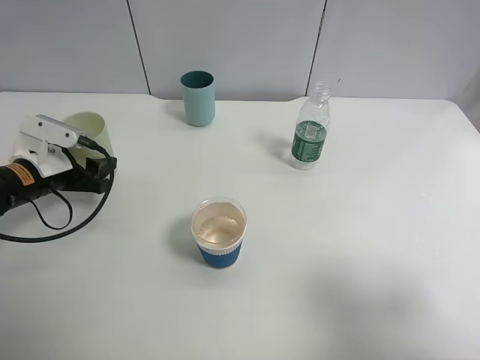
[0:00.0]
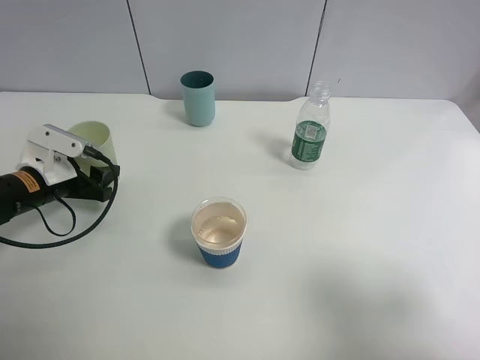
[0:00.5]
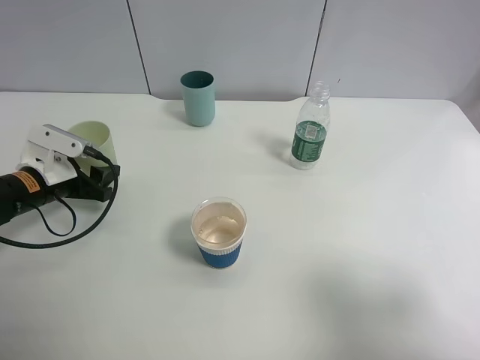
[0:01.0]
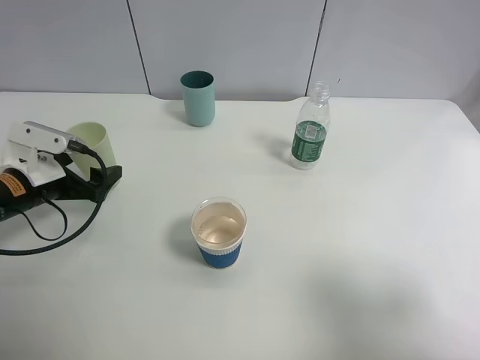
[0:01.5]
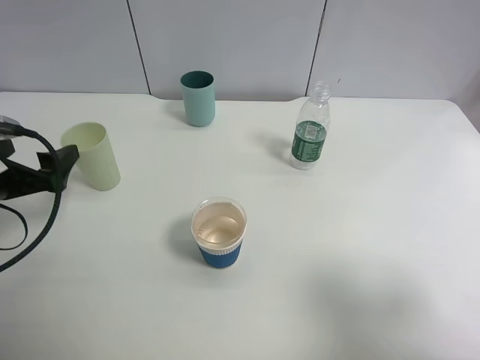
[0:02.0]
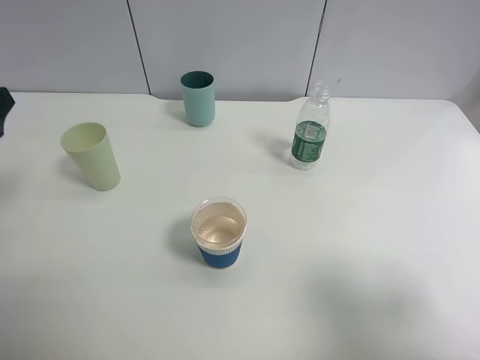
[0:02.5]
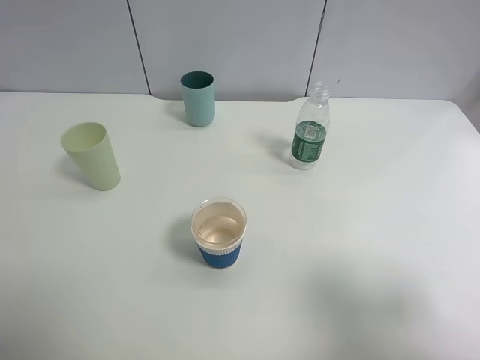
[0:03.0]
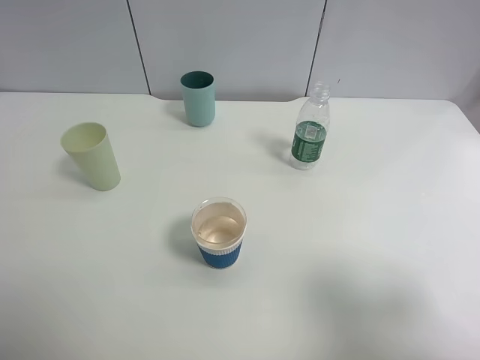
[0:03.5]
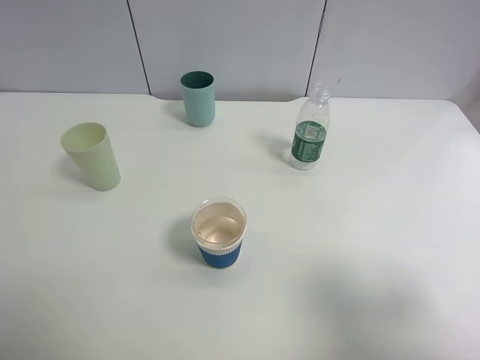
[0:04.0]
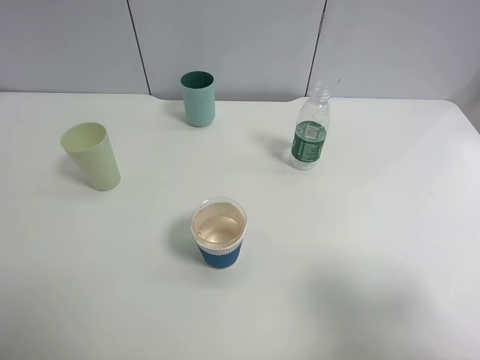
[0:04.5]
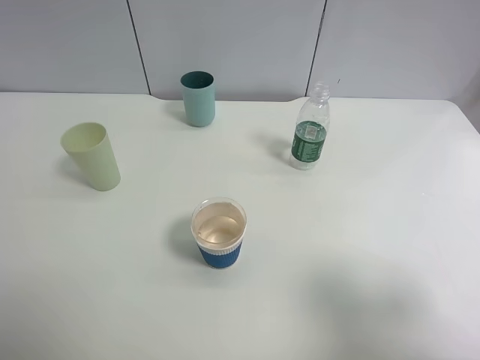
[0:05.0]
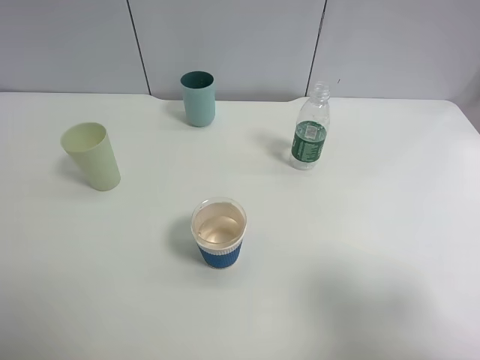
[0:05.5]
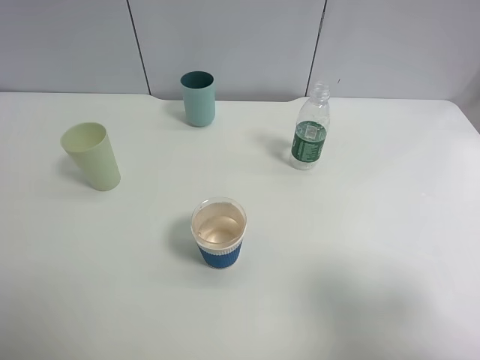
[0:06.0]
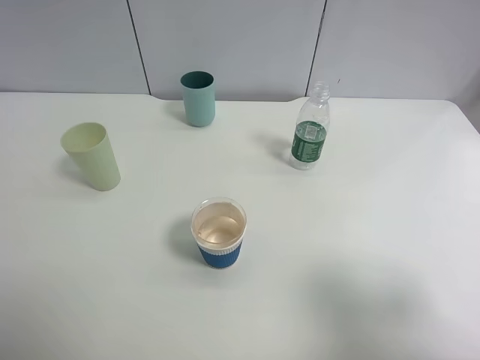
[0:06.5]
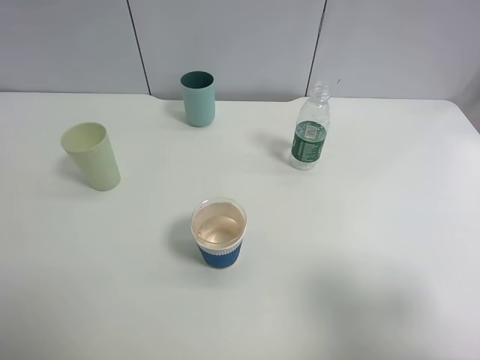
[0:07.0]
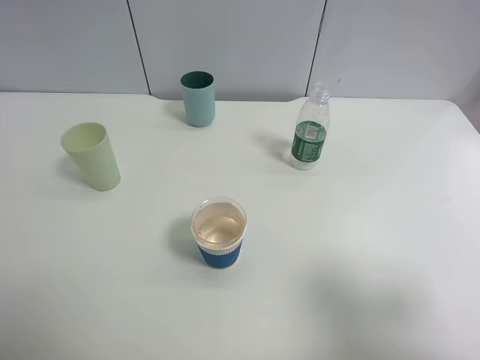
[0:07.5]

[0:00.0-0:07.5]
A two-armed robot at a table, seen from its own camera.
Task of the whole recording: use a clamp to hold the bottle of the drink, pour the beverage into a random cup, then clamp the cup containing the drink and pour the drink into another random cup.
0:00.0 to 0:02.0: The left gripper goes roughly 10 cm backward and upward, and opens up.
0:02.0 to 0:04.0: The left gripper goes about 25 cm backward and upward.
0:05.5 to 0:07.5: The two grippers keep their place.

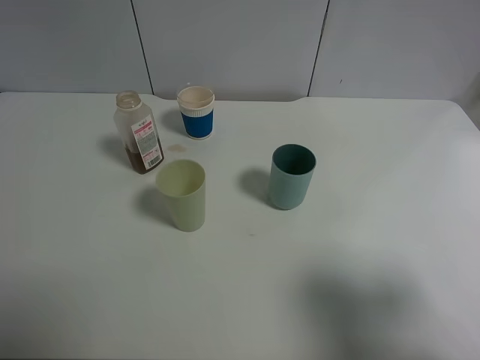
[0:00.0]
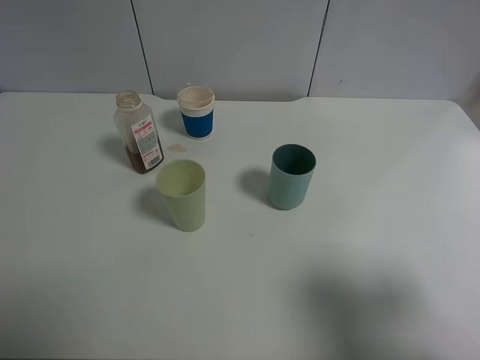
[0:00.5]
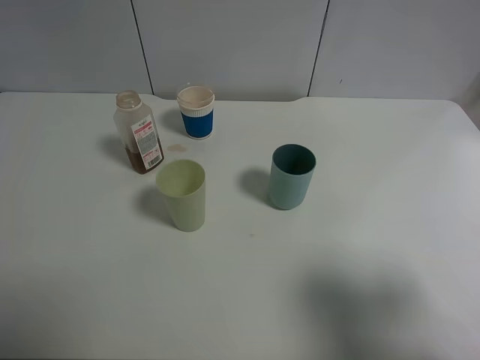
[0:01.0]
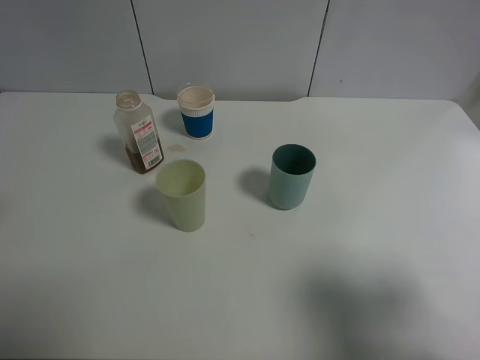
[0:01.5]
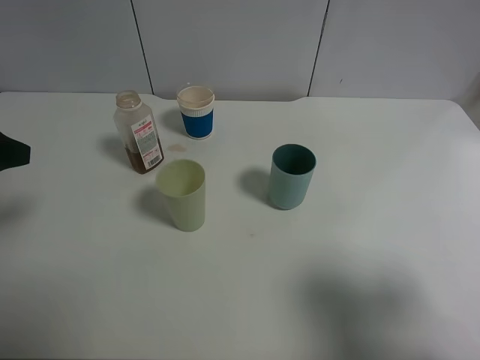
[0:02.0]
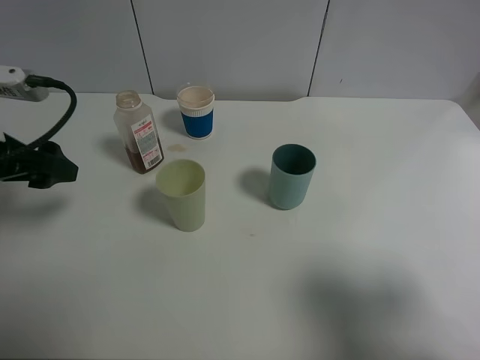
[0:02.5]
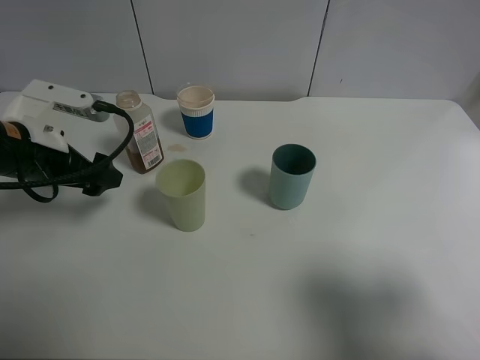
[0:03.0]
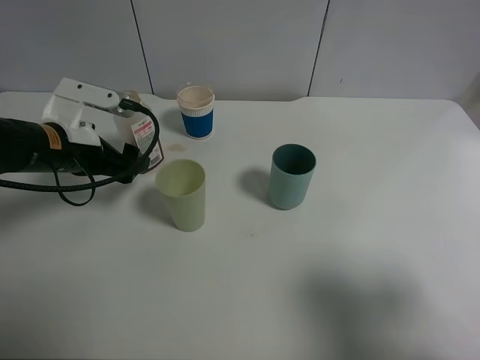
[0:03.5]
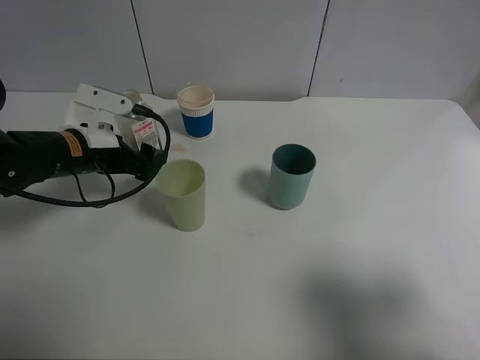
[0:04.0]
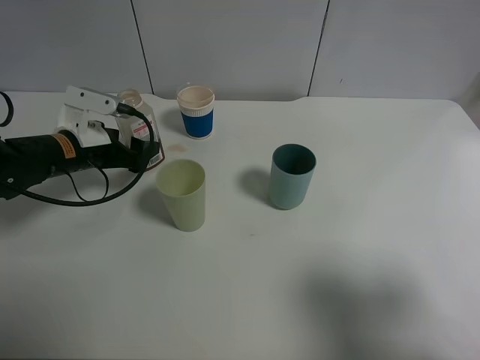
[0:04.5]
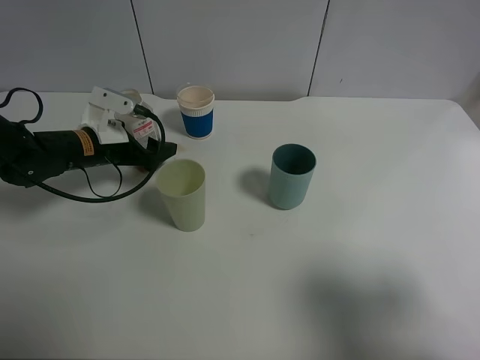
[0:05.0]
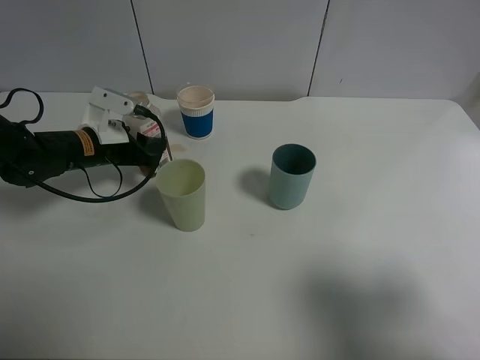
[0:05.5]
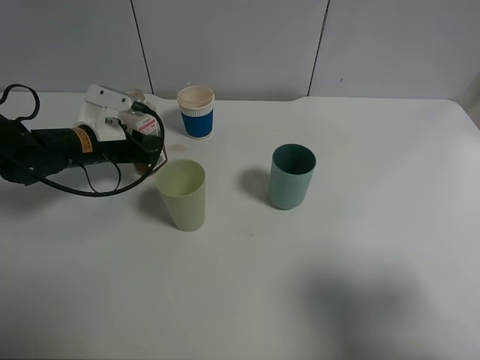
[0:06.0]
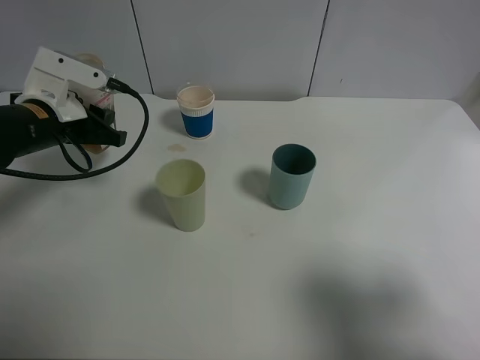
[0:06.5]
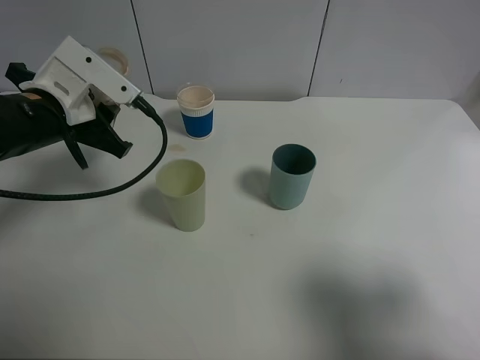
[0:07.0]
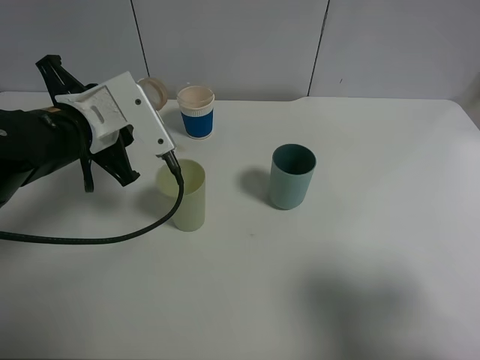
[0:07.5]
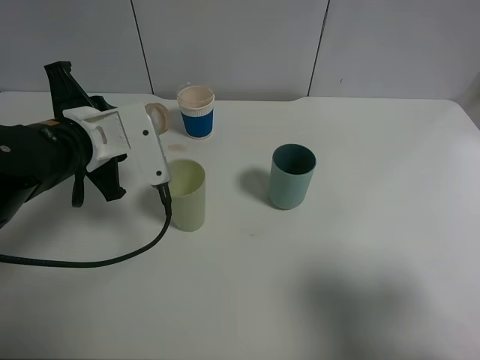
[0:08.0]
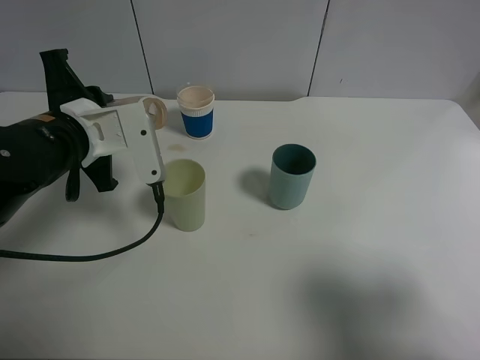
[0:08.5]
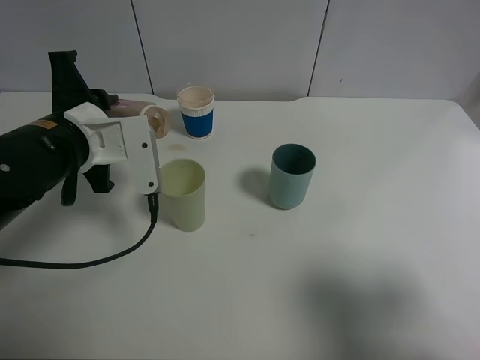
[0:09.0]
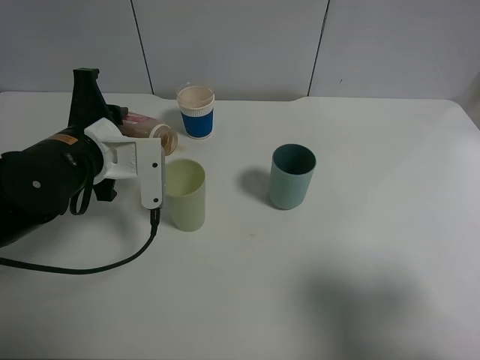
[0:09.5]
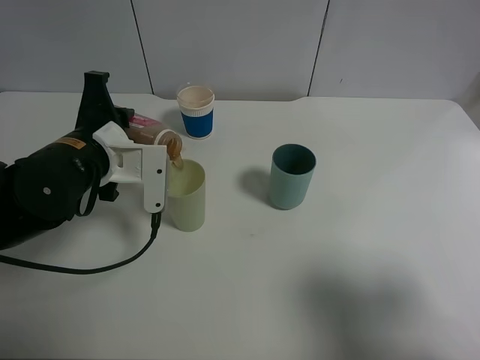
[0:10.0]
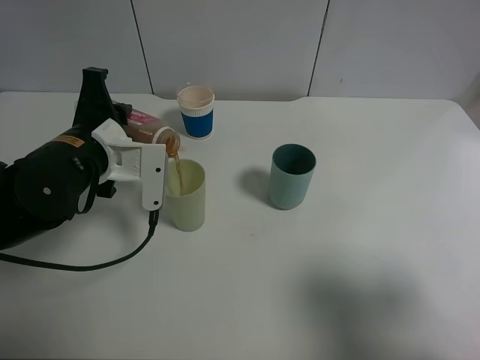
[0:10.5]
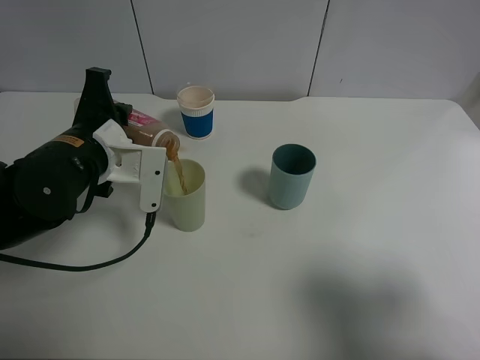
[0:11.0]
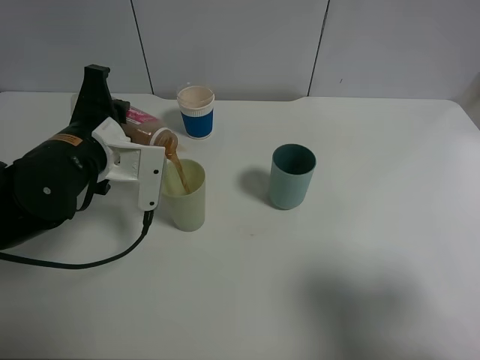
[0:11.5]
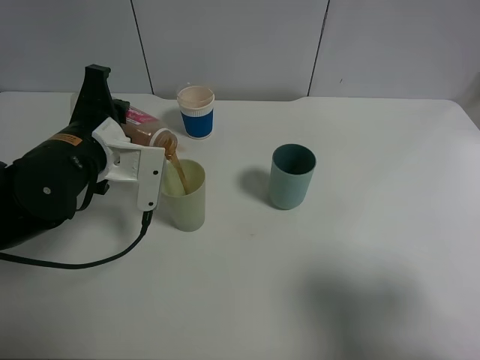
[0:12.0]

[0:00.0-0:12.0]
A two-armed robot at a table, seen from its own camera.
Task of the whole recording: use a clamp to hold the bottle of the drink, pour the beverage into a random cup, then clamp the cup containing the drink and pour the drink into another random cup.
Step, 0:00.0 to 0:06.5: Pick up the drink bottle with left gripper.
0:00.0 to 0:02.0: The left gripper travels forward by some 15 cm.
0:02.0 to 0:04.0: The left gripper shifts about 20 cm downward, forward and to the right.
0:04.0 to 0:06.0: The left gripper moves forward, some 5 cm, and closes.
0:06.0 to 0:08.0: The left gripper shifts about 15 cm backward and upward.
0:10.0 to 0:12.0: The grippers move only a little.

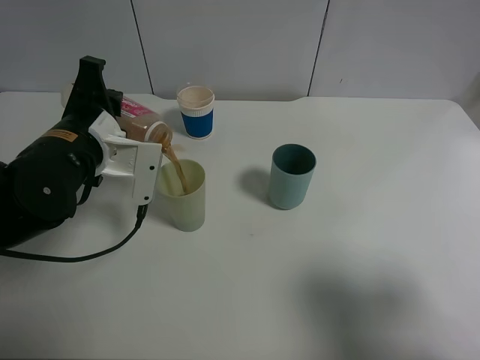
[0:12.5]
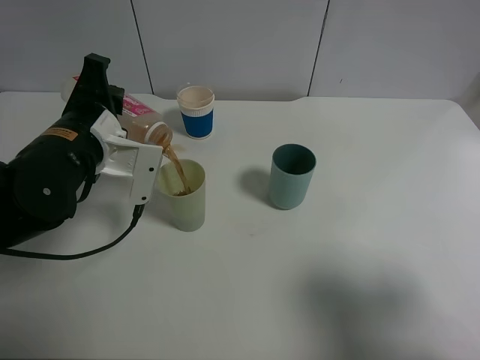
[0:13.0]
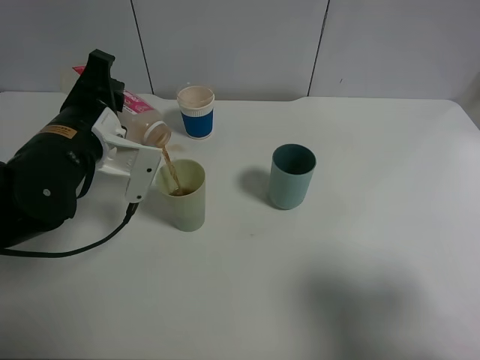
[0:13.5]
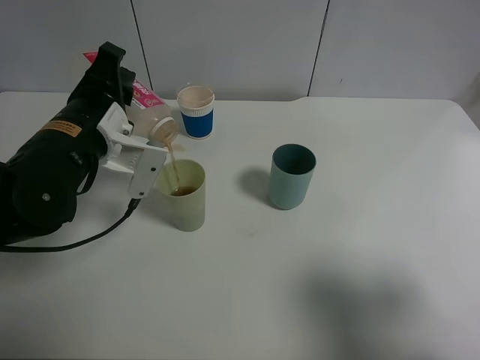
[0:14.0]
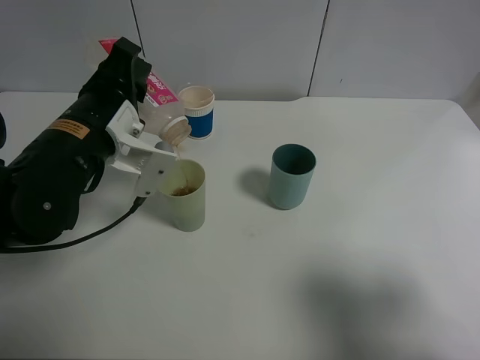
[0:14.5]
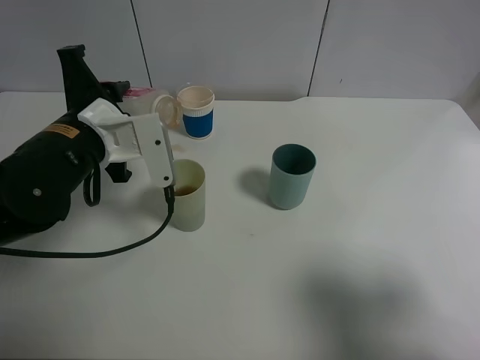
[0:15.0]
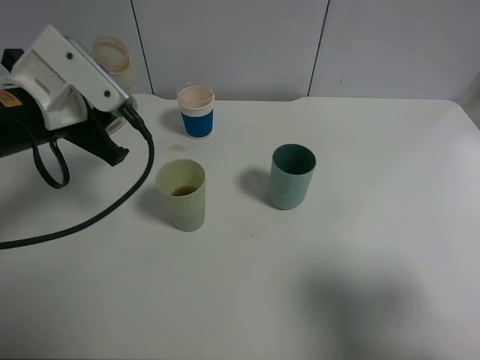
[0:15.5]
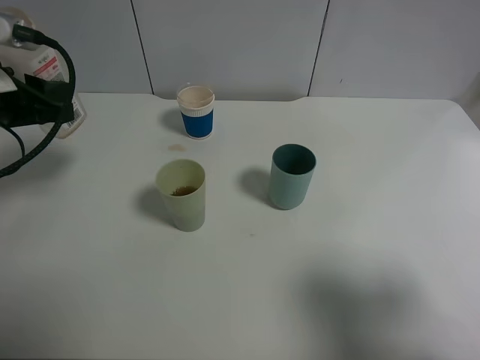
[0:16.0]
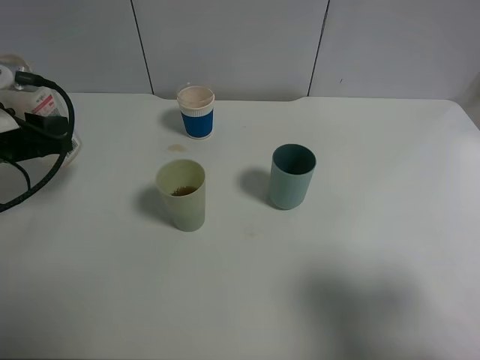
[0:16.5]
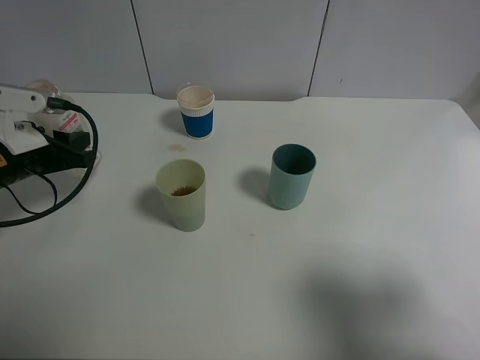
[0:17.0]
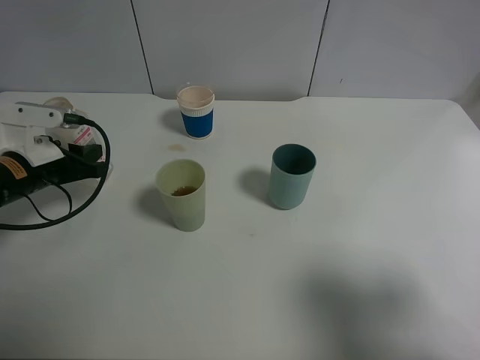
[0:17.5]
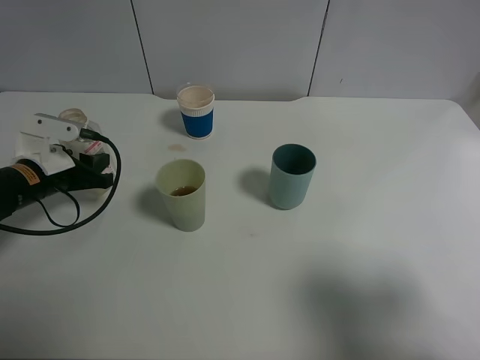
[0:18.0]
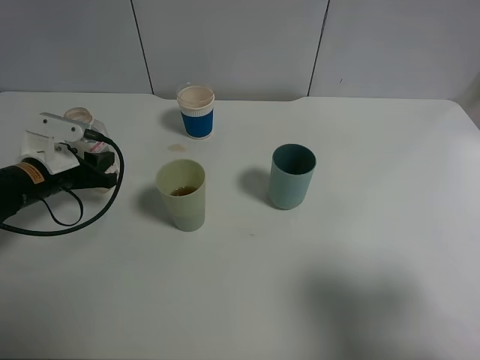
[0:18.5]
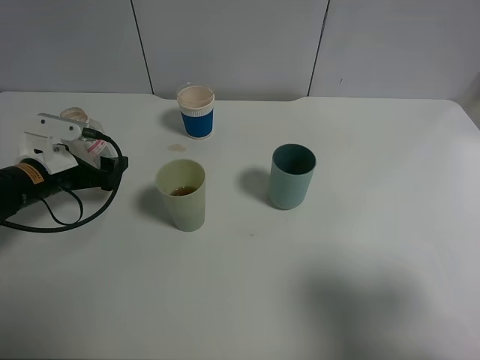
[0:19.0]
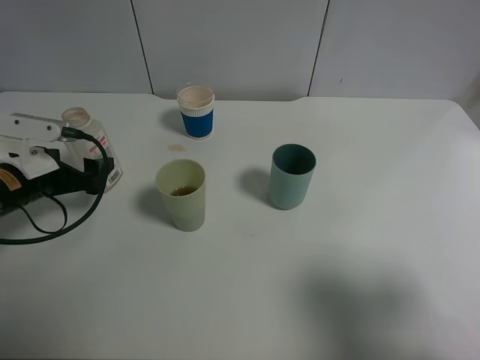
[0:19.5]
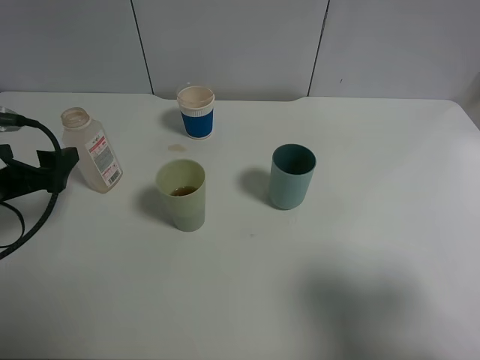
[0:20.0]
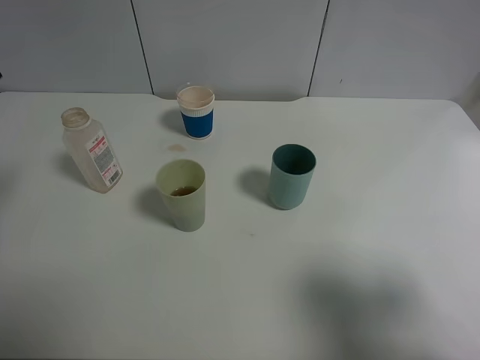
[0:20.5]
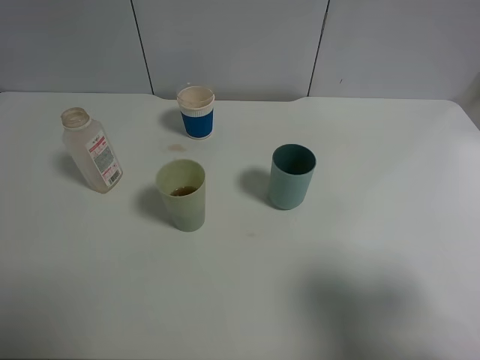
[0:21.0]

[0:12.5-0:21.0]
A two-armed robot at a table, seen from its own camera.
Task of the whole recording: use a clamp to hold the bottle of the drink, pour the beverage into a random cup, then clamp the cup containing the drink and pour the drink into another random cup.
Step, 0:12.5 to 0:14.5: Pour the drink into the green plastic cup with left gripper.
Step, 0:15.0 to 0:19.0: Place the drink bottle on the table with left gripper.
0:14.5 to 0:16.5: The left gripper is displaced to the left by roughly 15 cm.
0:16.5 to 0:19.0: The left gripper moves downward, some 10 cm, and opens.
0:19.0 to 0:21.0: The left gripper goes some 30 cm upward and backward.
